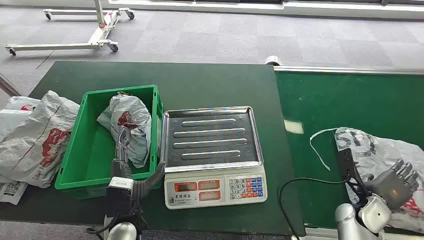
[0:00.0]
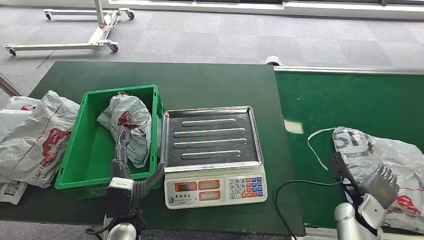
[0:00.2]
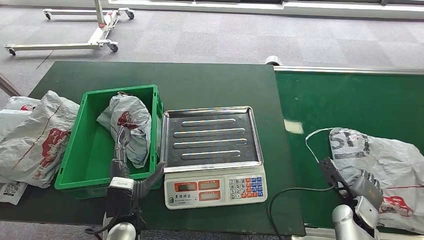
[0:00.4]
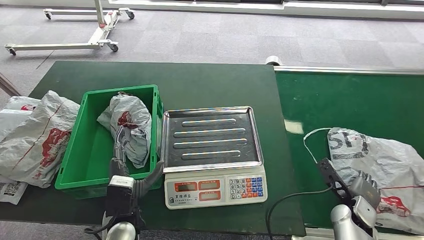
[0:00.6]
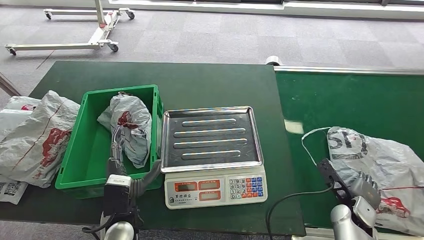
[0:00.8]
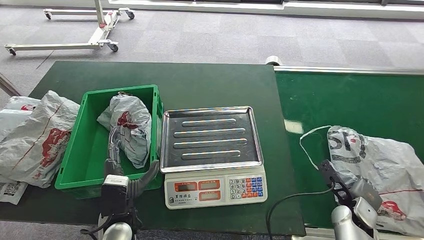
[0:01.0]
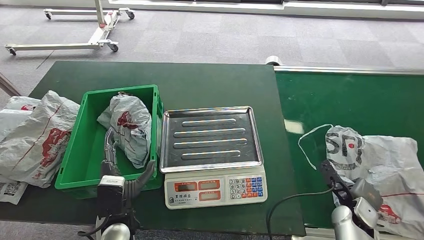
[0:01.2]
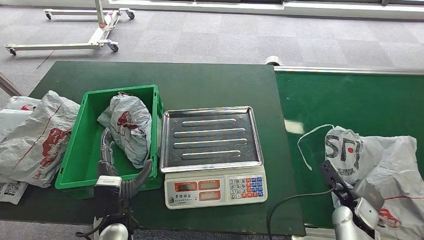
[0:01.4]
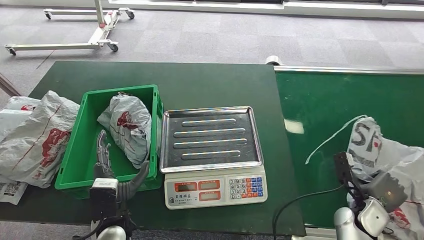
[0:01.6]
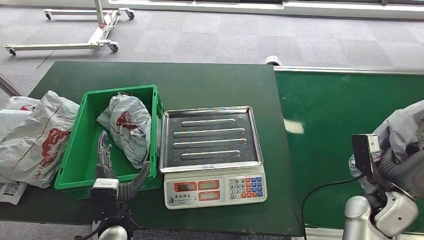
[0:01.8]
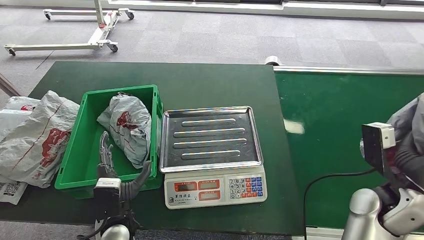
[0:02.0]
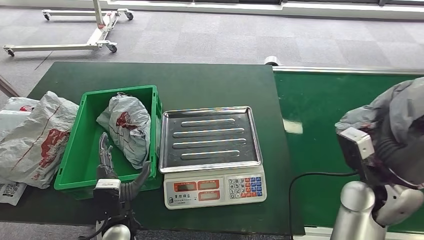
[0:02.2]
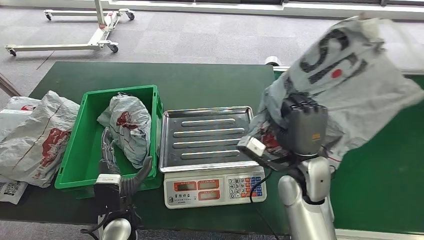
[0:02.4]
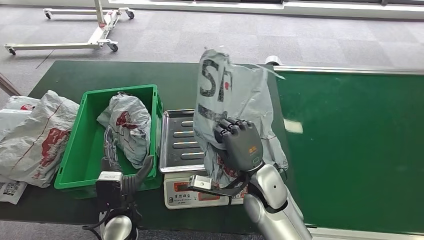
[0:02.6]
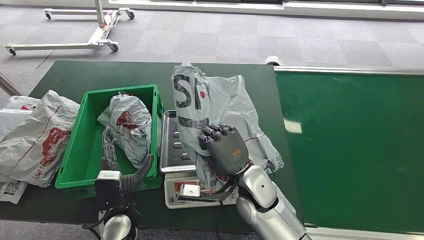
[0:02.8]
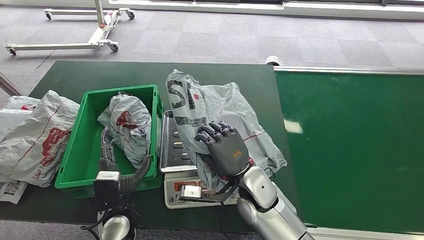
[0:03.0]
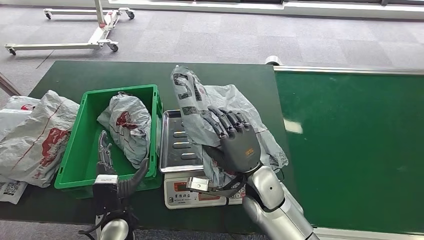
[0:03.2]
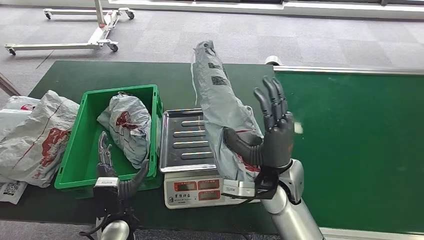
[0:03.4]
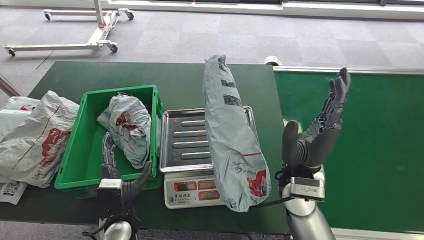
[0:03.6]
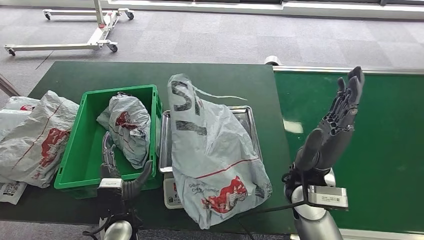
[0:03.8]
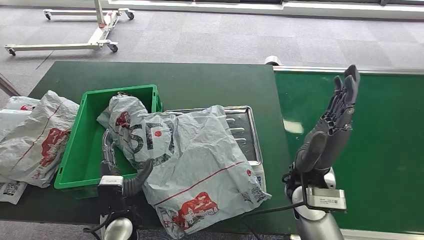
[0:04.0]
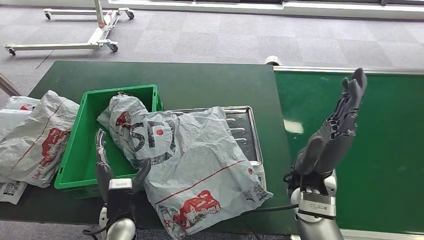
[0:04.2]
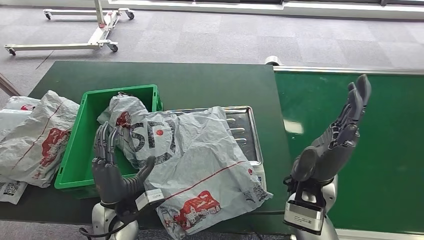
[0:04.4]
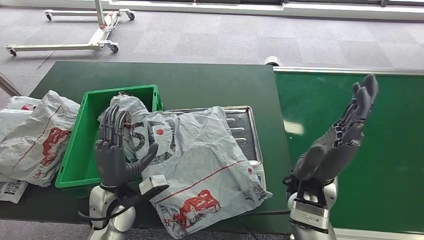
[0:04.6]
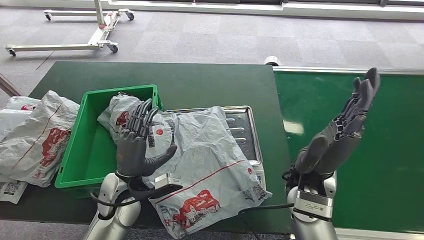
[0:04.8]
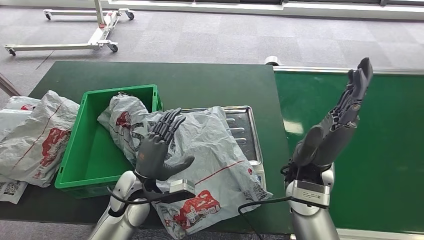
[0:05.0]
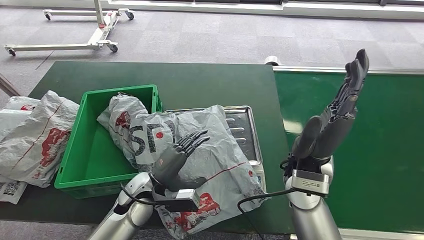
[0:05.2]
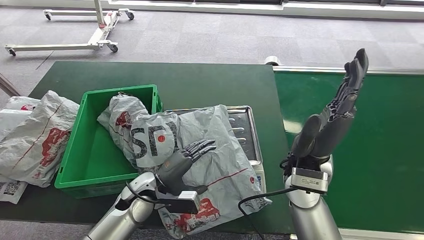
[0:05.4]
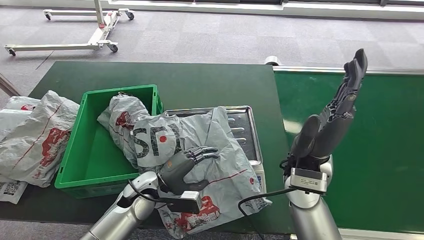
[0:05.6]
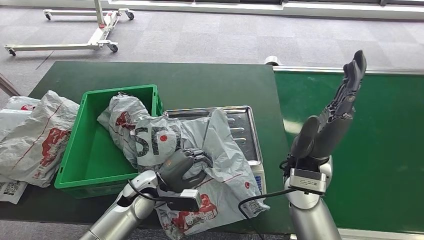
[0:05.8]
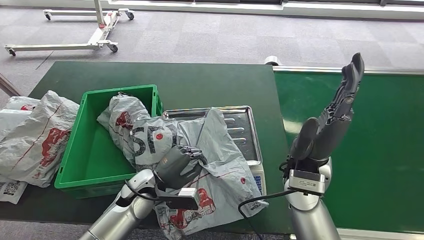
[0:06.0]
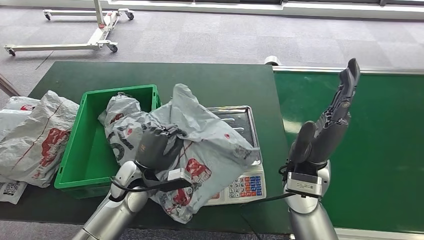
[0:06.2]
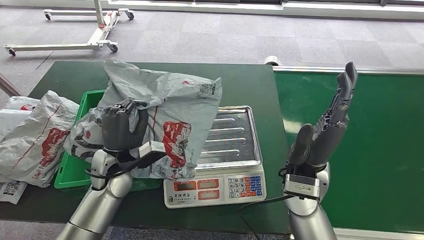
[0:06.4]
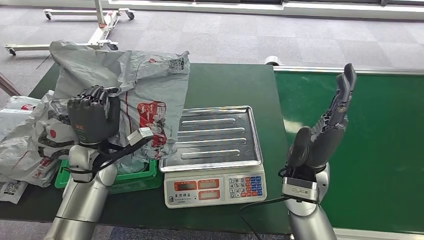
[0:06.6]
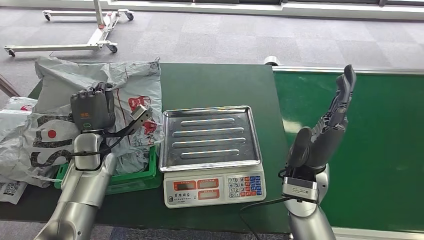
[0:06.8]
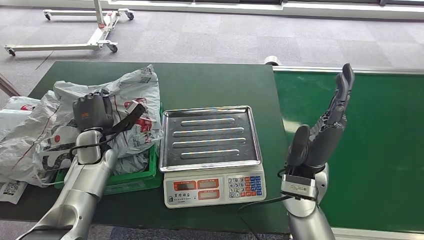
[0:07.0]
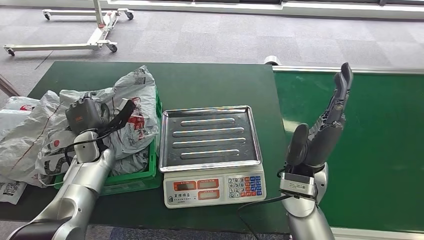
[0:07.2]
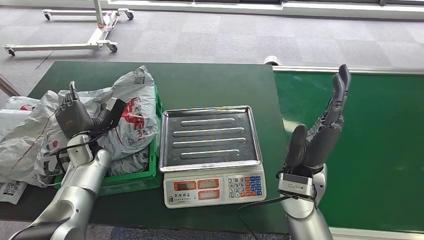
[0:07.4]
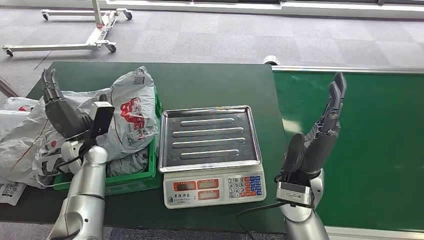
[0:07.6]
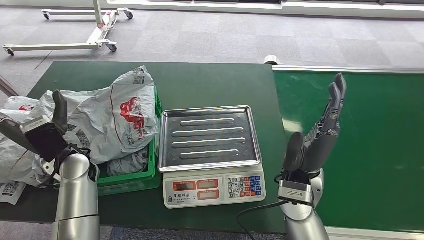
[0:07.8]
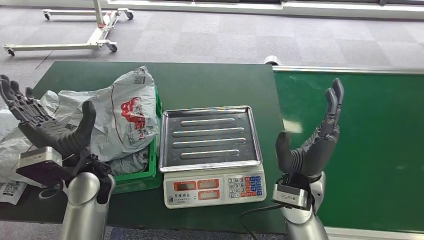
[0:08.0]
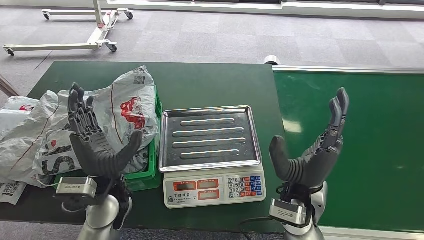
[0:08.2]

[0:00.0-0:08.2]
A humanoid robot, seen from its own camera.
Step, 0:00.0 to 0:02.4: Pick up the package from the conveyor belt.
Step, 0:02.6 to 0:04.0: Place the package onto the inbound machine.
Step, 0:04.2 to 0:06.6: Pick up the package from the inbound machine.
Step, 0:06.8 to 0:08.2: Place the package into the parcel locker.
